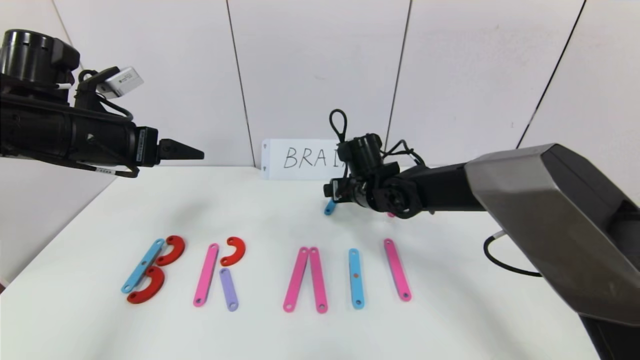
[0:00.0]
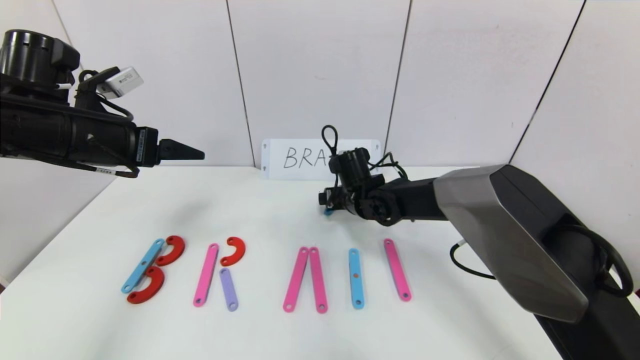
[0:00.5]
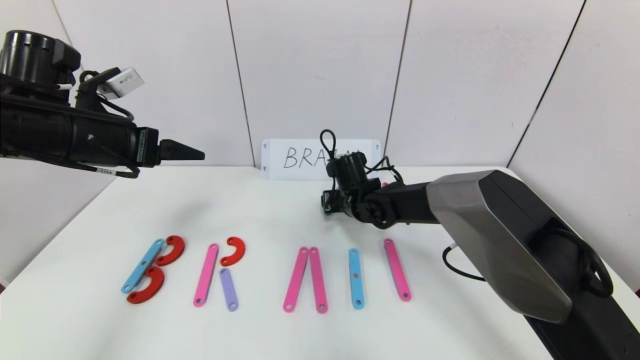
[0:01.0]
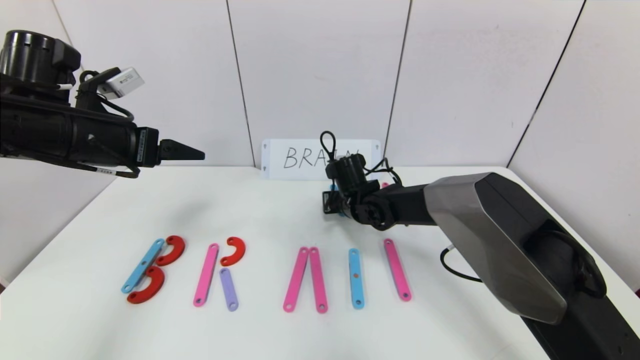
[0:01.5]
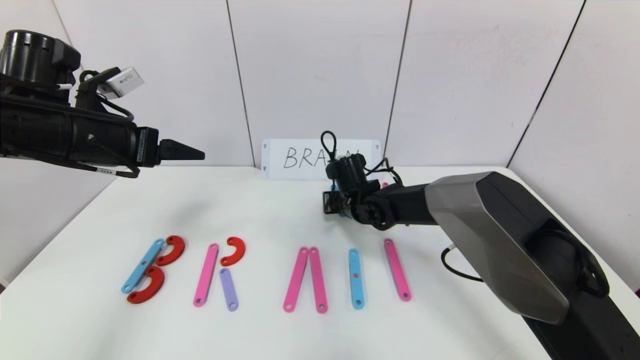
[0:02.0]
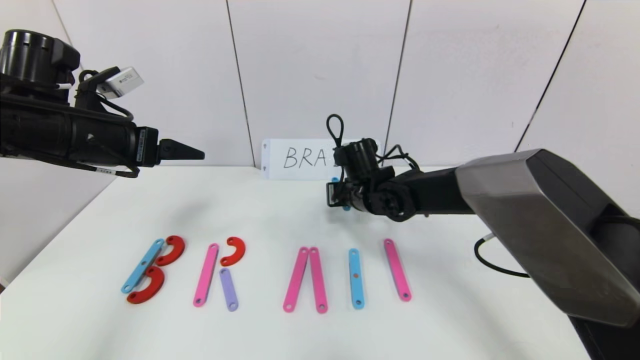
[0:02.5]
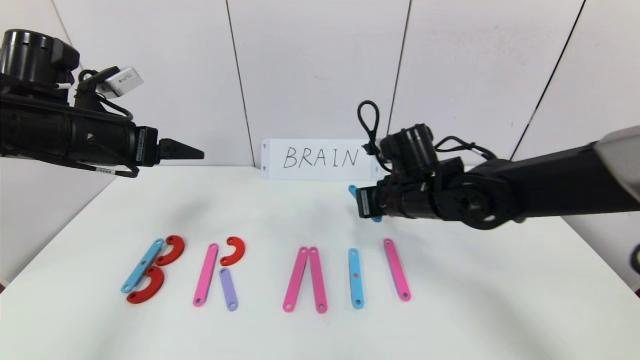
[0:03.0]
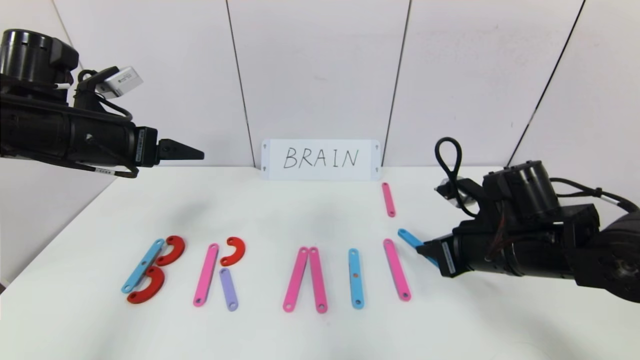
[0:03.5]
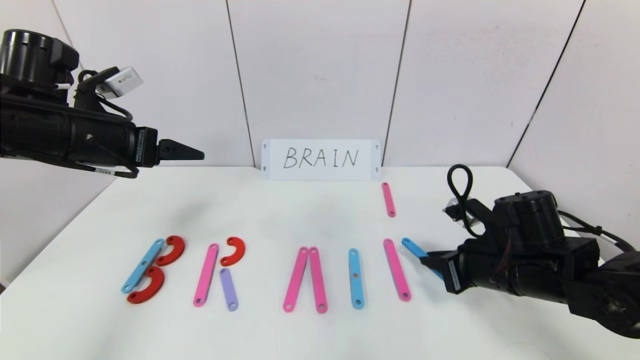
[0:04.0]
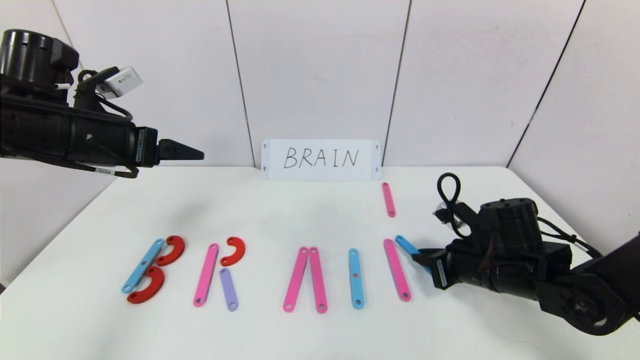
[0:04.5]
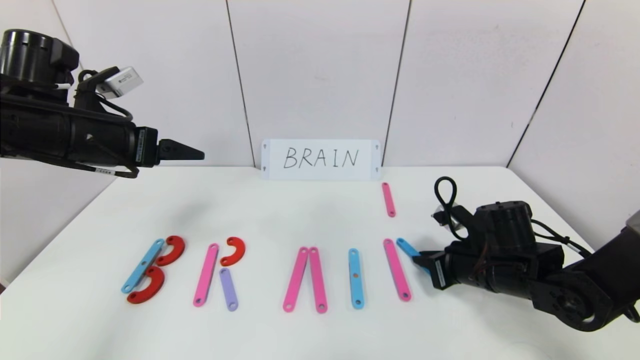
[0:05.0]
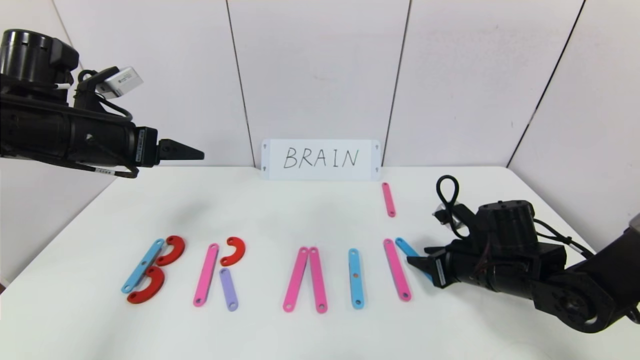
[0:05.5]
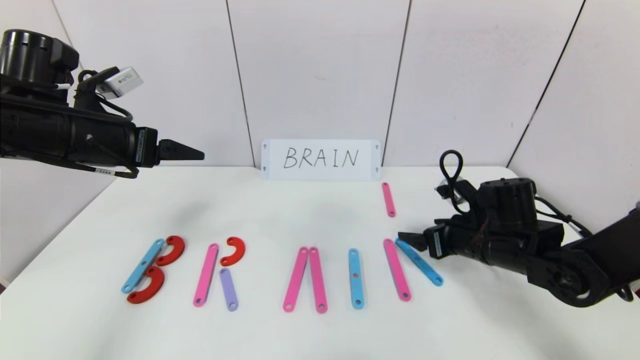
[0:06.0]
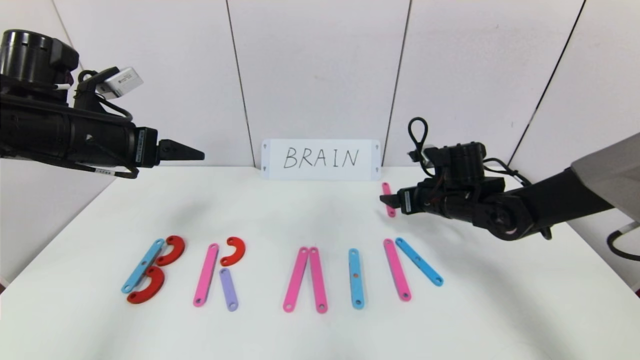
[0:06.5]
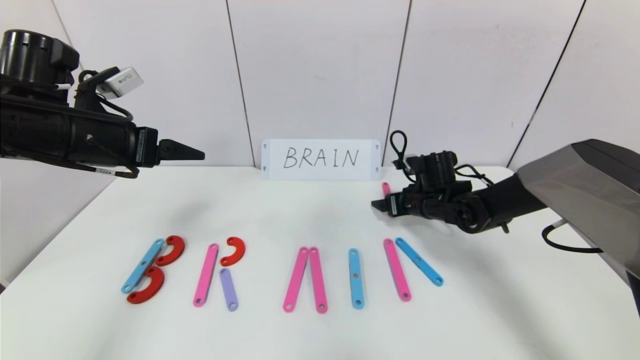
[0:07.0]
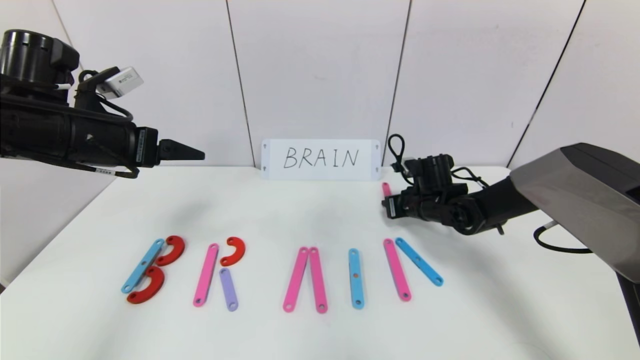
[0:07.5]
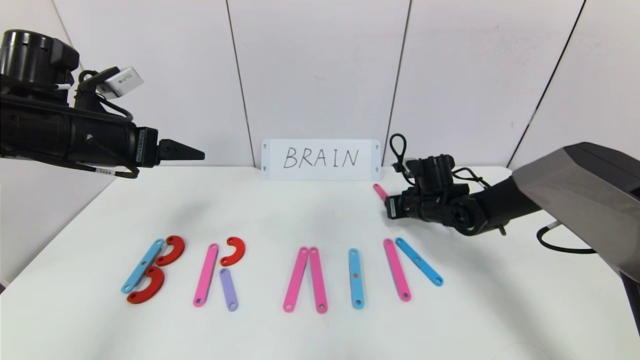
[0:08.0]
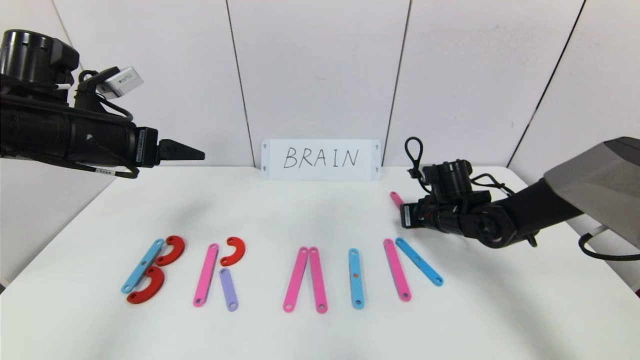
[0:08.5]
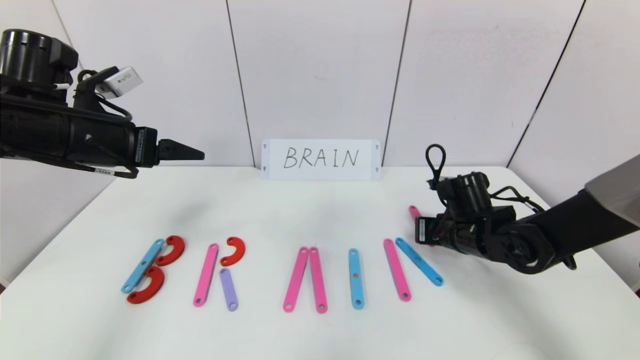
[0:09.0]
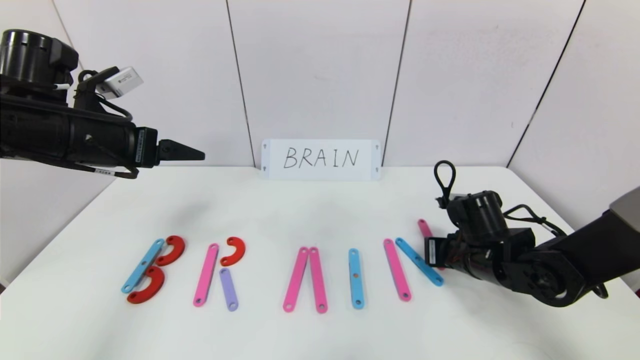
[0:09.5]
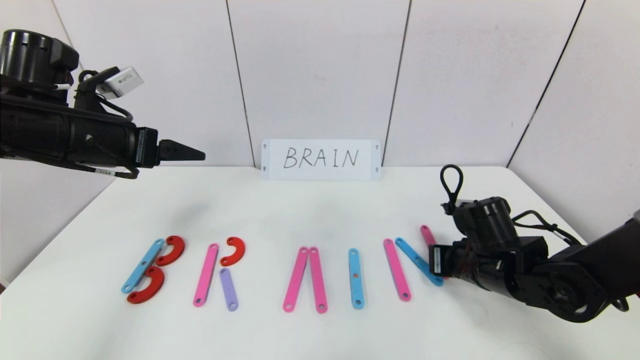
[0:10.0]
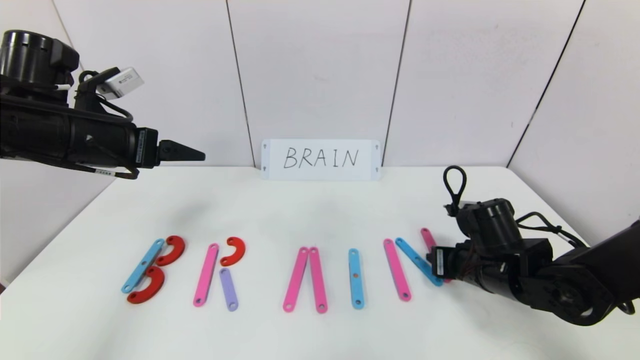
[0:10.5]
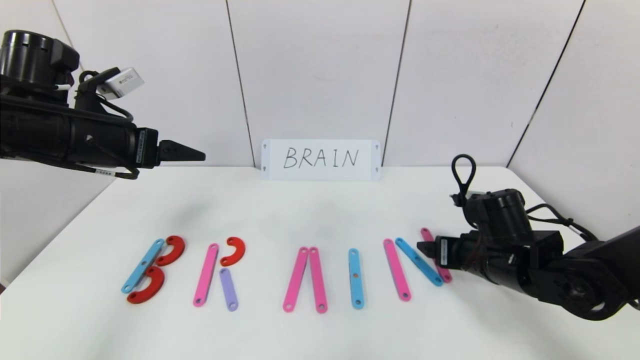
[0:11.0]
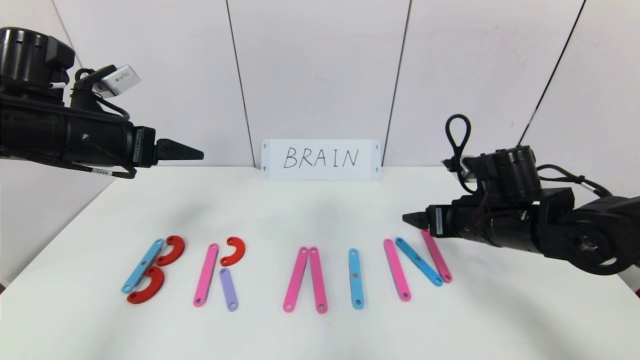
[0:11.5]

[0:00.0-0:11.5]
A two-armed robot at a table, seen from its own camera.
Task of the whole recording: rearrange the word baai as brain.
Step, 0:00.0 to 0:11.0: Place the character N after character I.
0:00.0 to 0:02.0: The right gripper heads downward, covering approximately 5 cm, and closes up.
0:02.0 to 0:04.0: The right gripper heads to the right and backward, covering roughly 25 cm.
0:04.0 to 0:06.0: The right gripper goes some 5 cm forward, and opens its fingers.
0:06.0 to 0:07.5: The right gripper travels forward by some 15 cm, and closes.
0:07.5 to 0:09.5: The right gripper heads backward, covering some 15 cm.
0:09.5 to 0:11.5: The right gripper shifts approximately 10 cm upward, and opens its fingers.

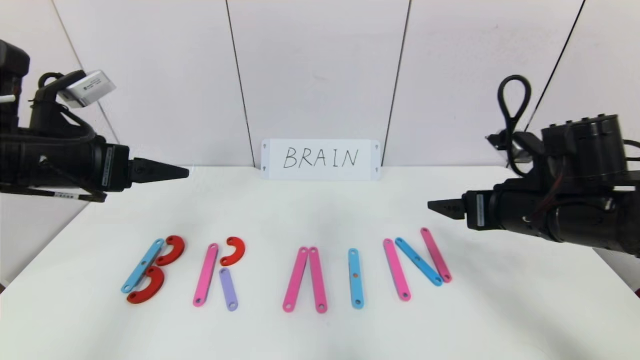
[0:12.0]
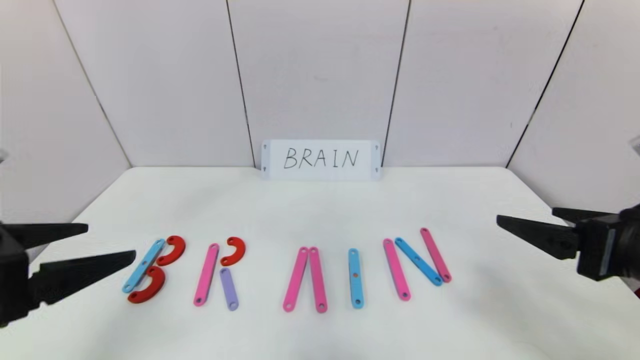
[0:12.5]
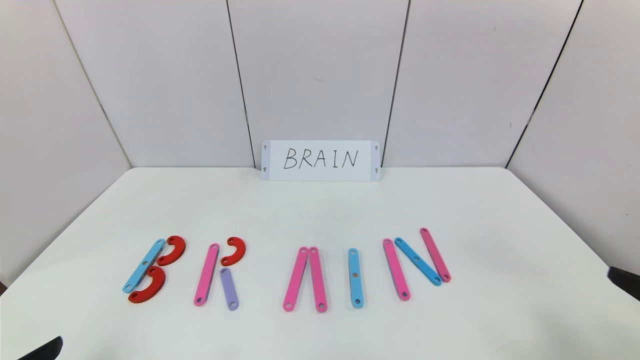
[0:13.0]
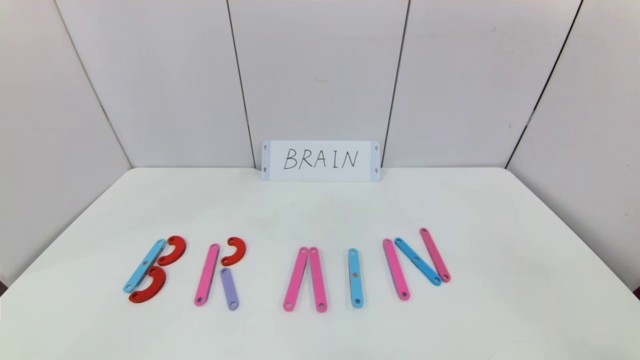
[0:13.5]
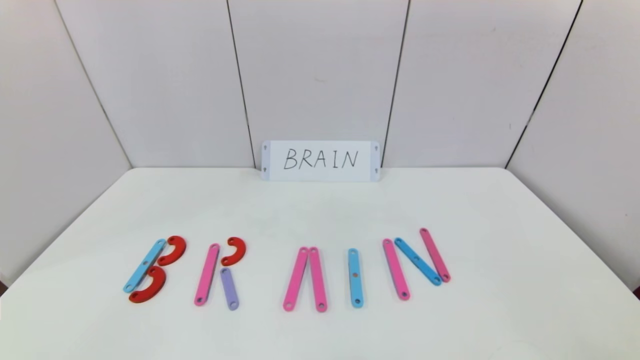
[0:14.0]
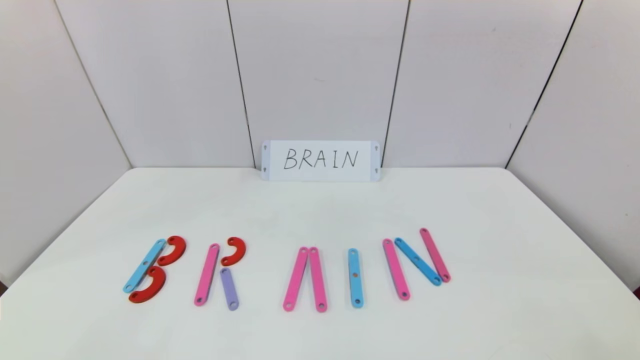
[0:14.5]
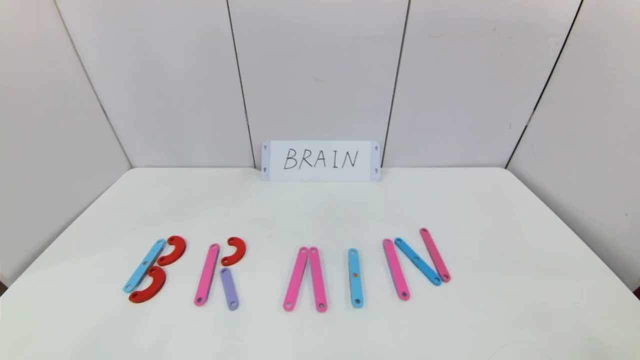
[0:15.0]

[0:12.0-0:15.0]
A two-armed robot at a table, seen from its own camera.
Task of the whole recording: rearrange the word baai as brain.
0:12.0 to 0:13.5: The two grippers go about 25 cm backward.
